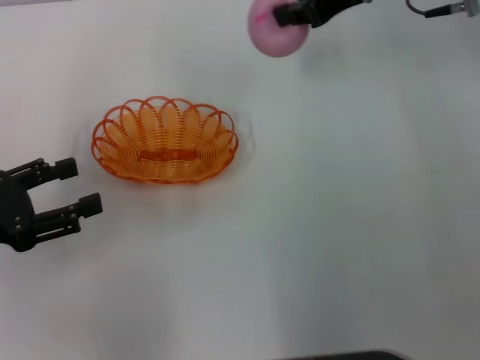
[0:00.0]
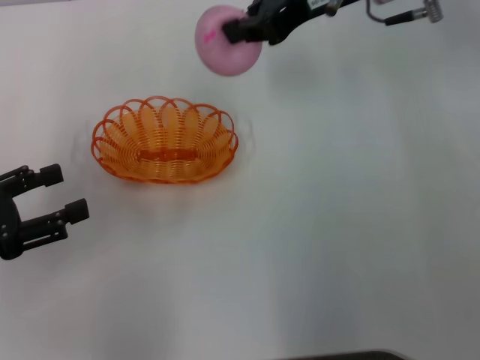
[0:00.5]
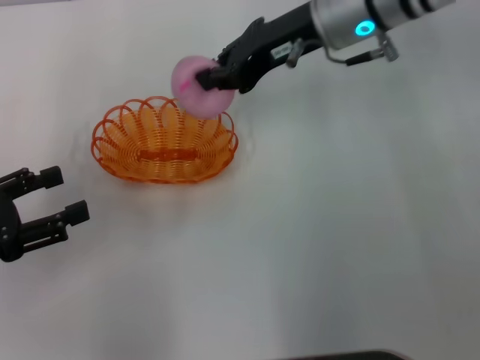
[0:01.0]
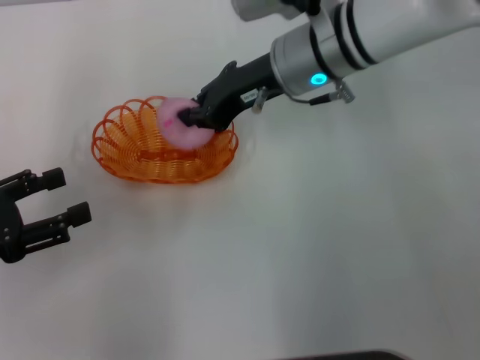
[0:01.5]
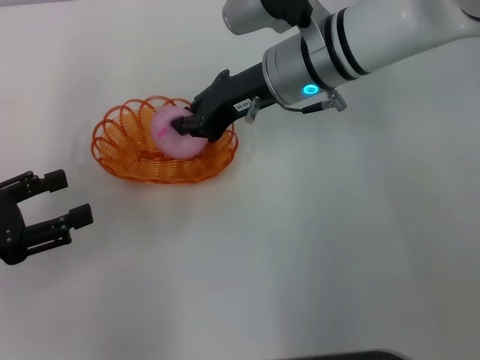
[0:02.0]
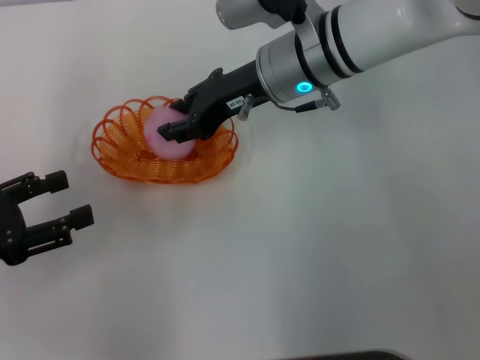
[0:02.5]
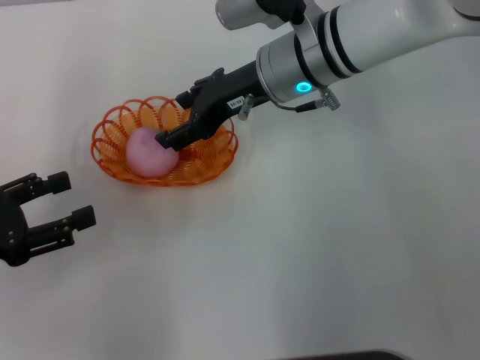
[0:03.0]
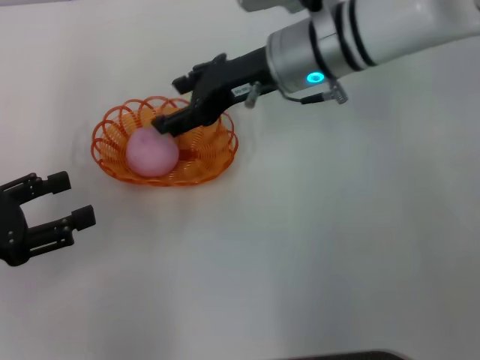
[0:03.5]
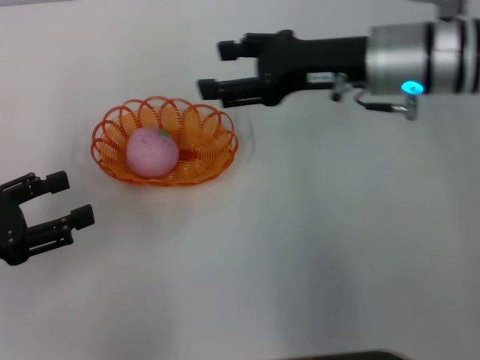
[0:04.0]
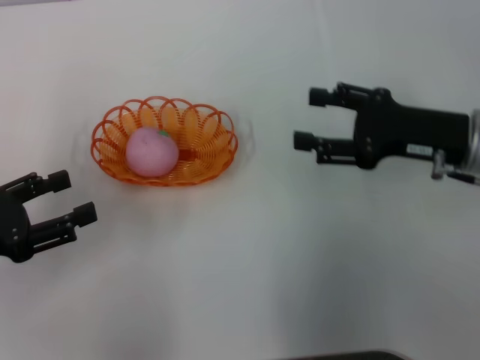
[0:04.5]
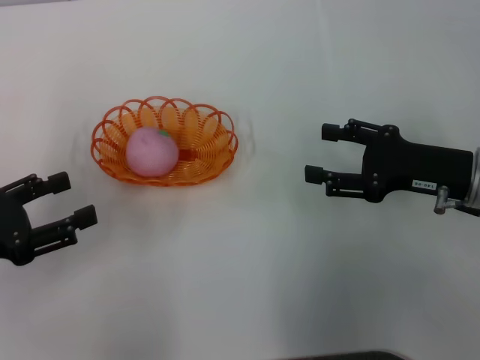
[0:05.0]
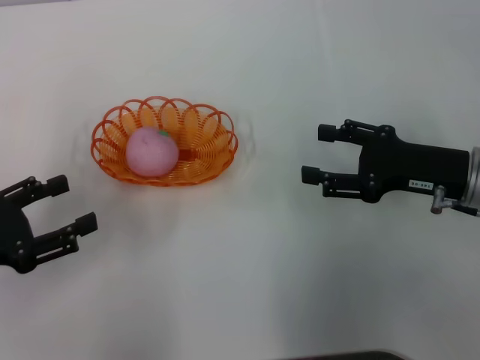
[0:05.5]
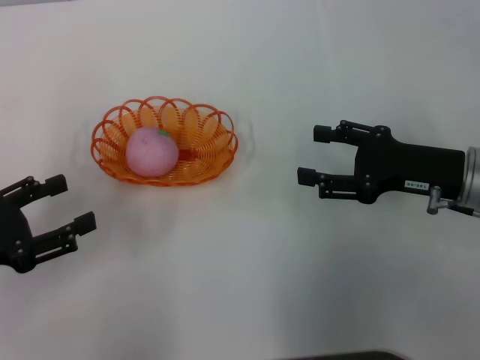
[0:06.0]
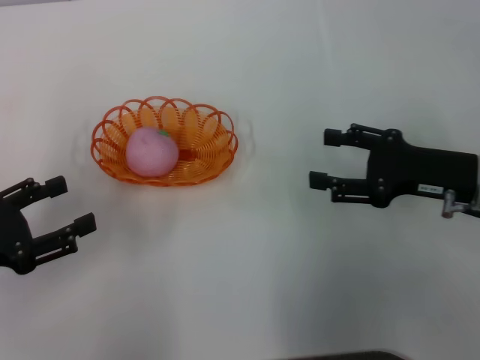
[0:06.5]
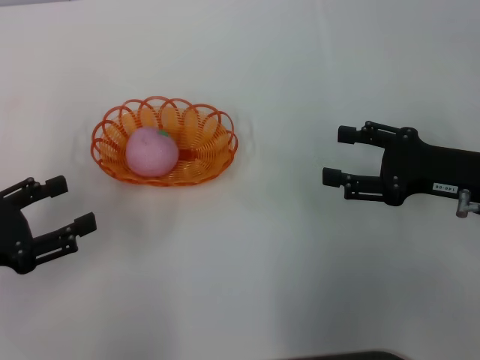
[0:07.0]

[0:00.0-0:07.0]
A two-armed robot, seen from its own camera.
Step, 0:00.0 to 0:03.5: Place the peach into the basket with the right gripper.
0:00.0 to 0:02.0: The right gripper is displaced to the left and downward by roughly 15 cm.
0:02.0 to 0:03.5: The right gripper opens its fingers.
0:03.5 to 0:05.0: The right gripper goes about 25 cm to the right, backward and downward.
0:05.0 to 0:07.0: The grippers stay close to where they were, moving slightly.
